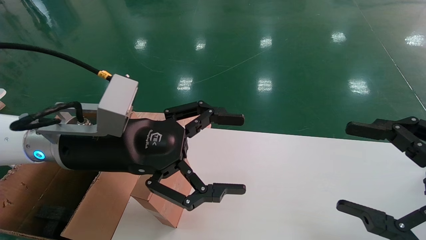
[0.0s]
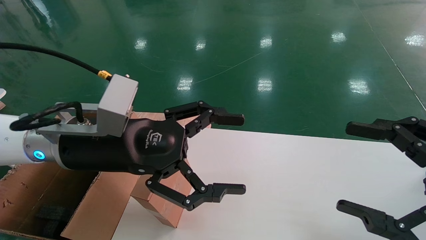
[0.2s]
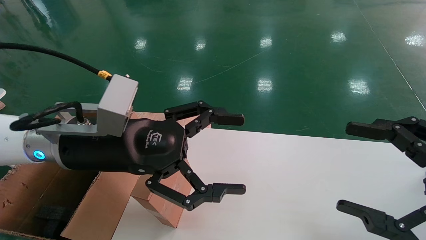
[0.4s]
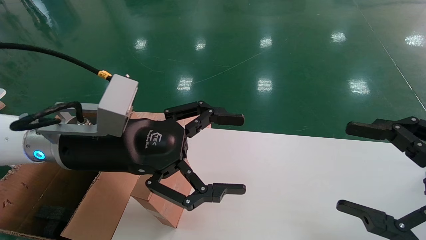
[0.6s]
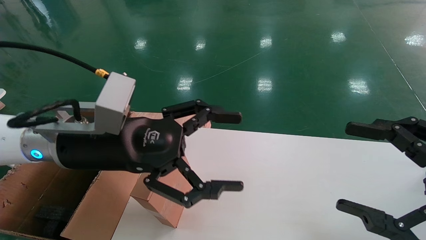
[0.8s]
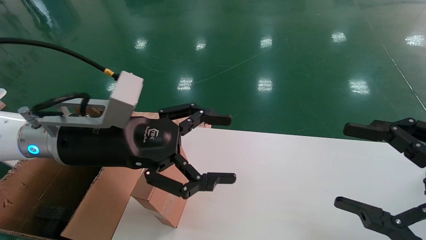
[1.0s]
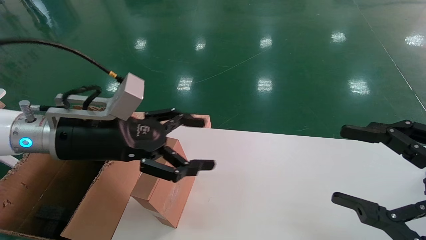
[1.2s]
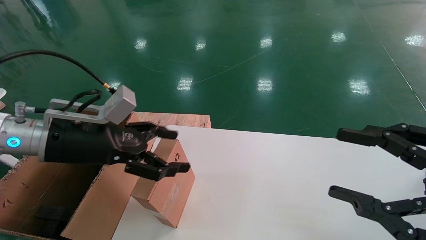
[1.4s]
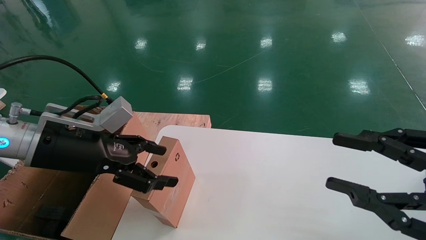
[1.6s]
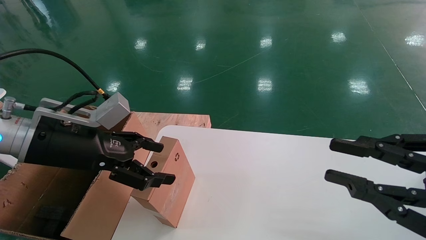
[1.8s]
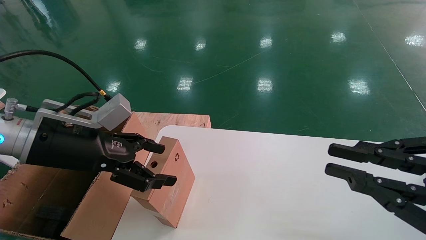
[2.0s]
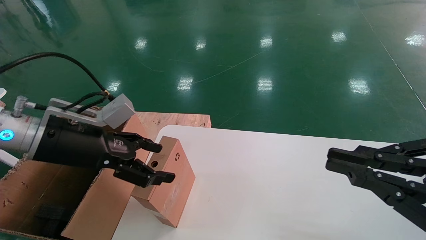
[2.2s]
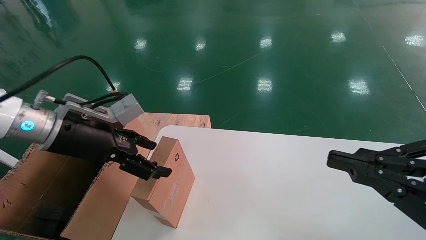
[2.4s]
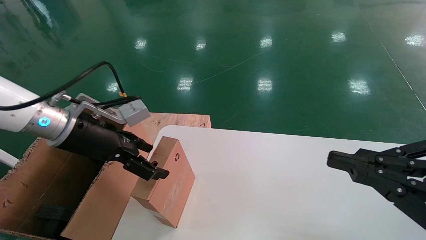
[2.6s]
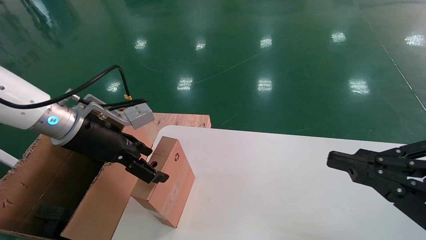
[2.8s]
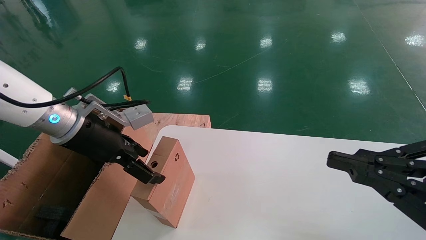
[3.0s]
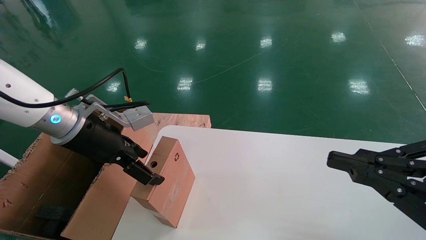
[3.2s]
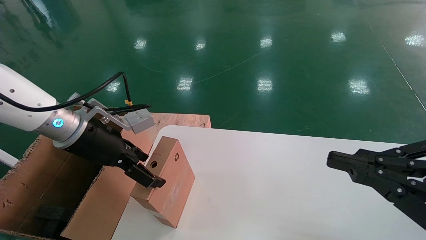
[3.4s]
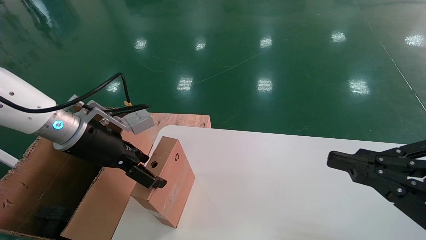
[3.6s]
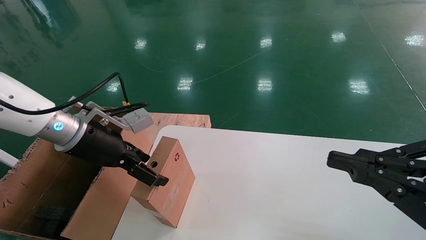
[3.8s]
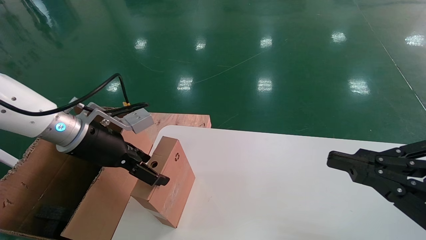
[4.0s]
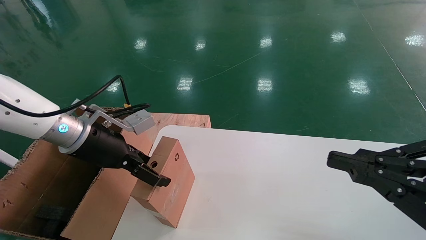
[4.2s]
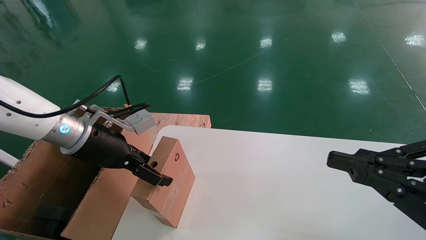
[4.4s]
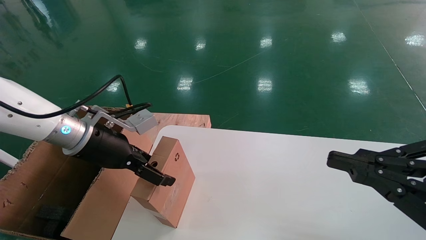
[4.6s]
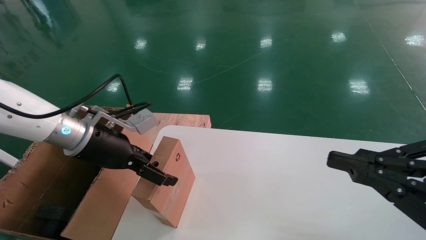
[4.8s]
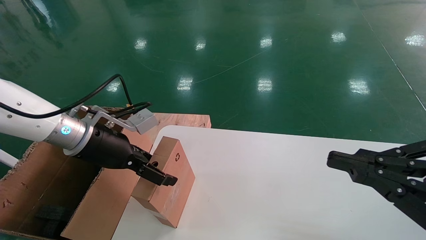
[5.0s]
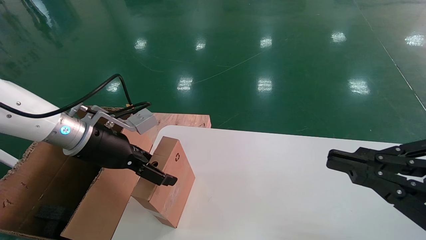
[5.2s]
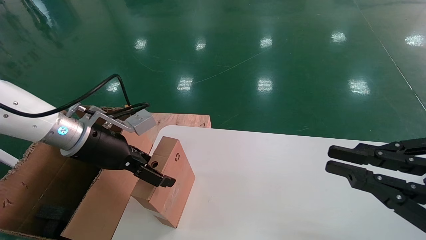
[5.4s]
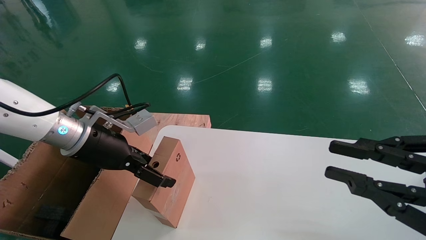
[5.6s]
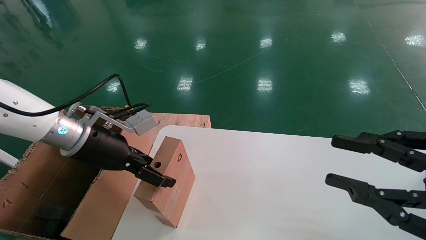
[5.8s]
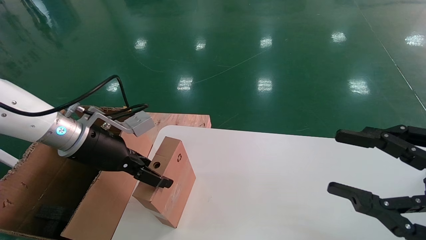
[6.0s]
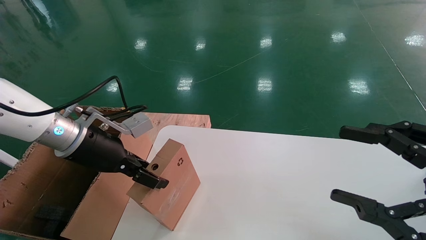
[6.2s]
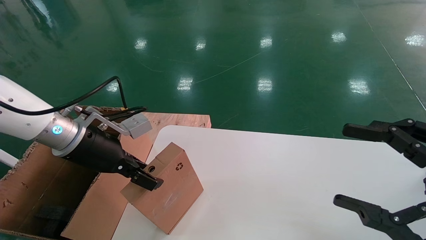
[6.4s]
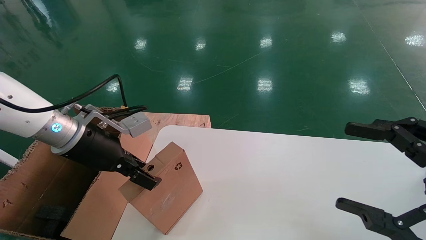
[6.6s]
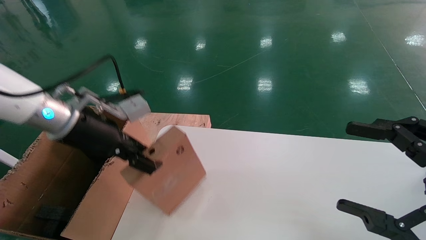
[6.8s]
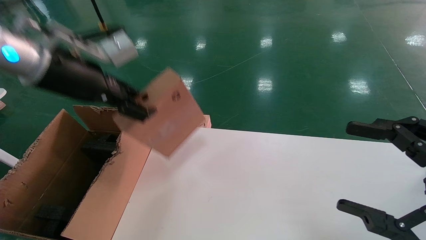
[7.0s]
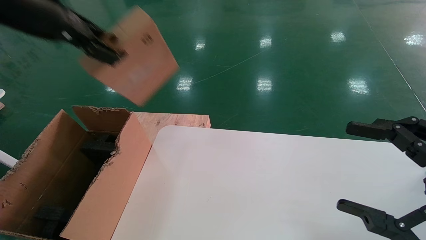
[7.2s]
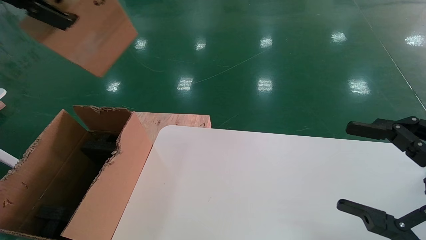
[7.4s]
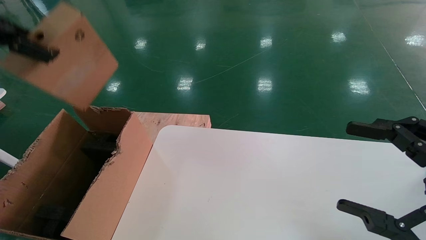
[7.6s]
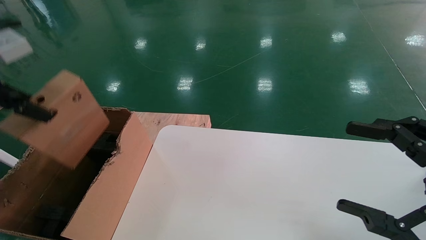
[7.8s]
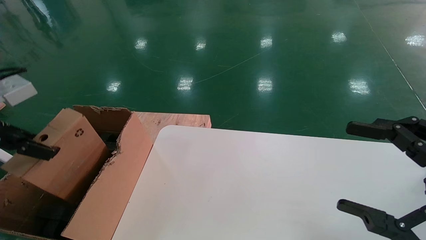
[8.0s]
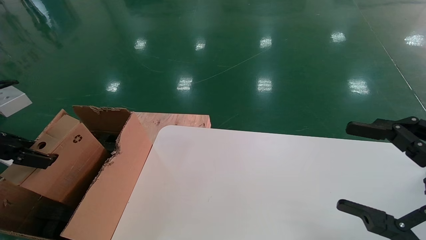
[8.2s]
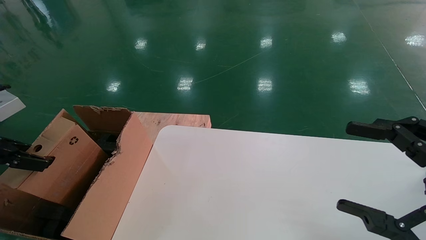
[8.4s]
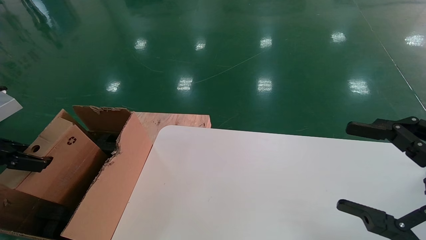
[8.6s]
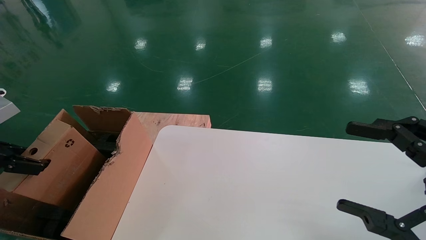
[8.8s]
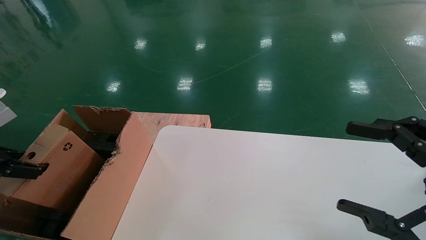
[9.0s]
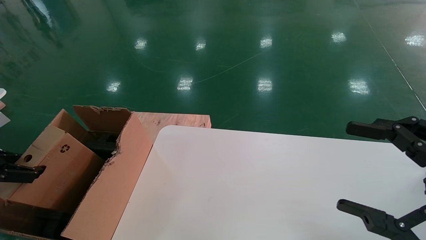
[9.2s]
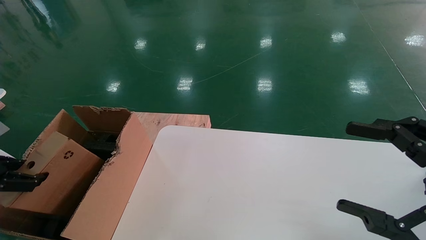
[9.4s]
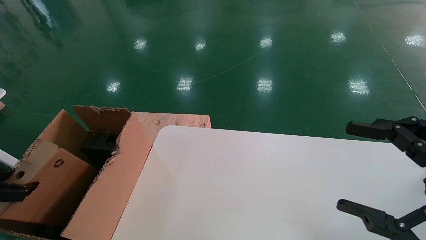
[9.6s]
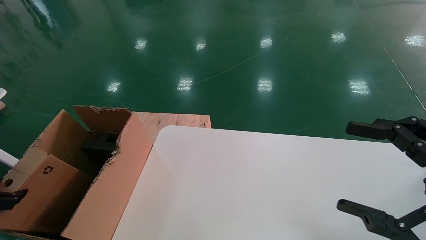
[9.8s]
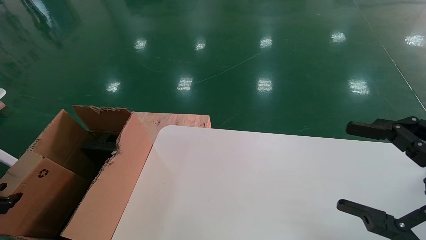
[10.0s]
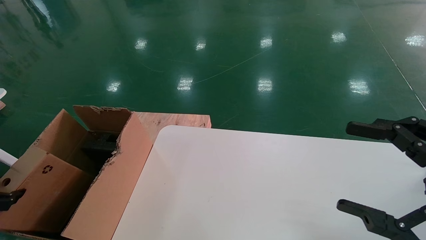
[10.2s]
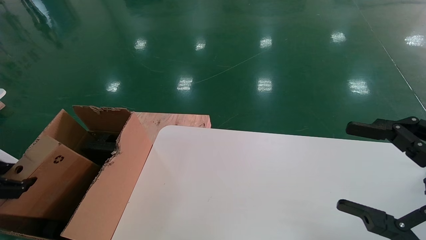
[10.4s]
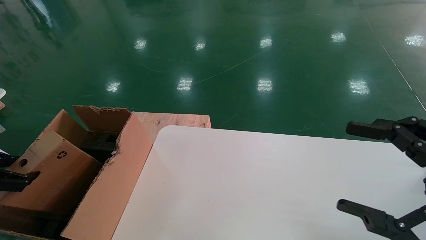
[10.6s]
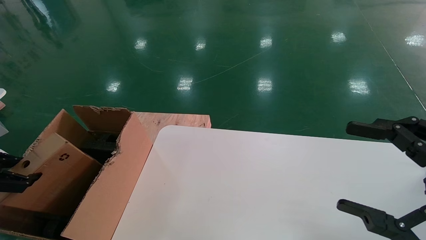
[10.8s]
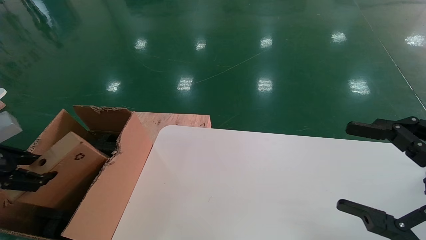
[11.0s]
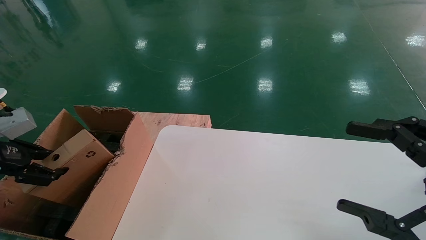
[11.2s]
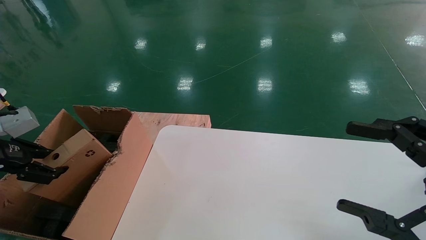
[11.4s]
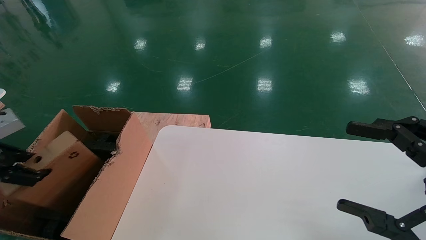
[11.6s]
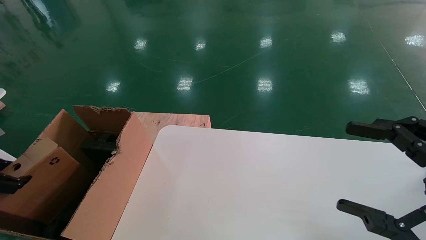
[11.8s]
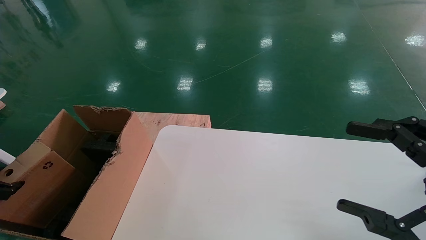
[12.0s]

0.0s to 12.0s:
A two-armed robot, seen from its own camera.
Task of the whole recording: place the small box on the table into the large box on the left.
Step, 1.2s to 6.4s: Pick up the mouse and the power cord paper box.
0.0s to 1.6s: The left gripper moves to the left, roughly 10 cm. Meanwhile the right gripper closes its fingers.
1.6s to 3.0s: The left gripper changes place by roughly 5 cm; the right gripper closes.
3.0s to 4.4s: The grippers stay close to where they were, moving slightly.
4.4s to 6.0s: The right gripper opens.
6.0s to 7.6s: The right gripper opens; the left gripper moves upward, to the left and backward, some 25 cm, and closes up.
7.6s to 9.0s: The left gripper goes roughly 20 cm downward and to the left.
10.4s to 12.0s: The grippers make only small movements.

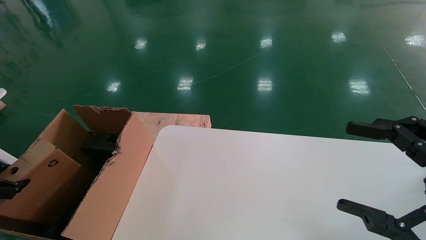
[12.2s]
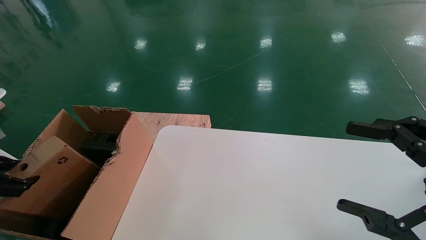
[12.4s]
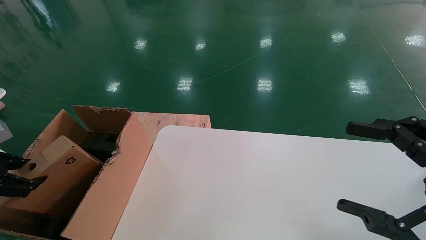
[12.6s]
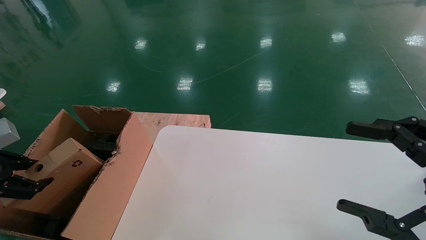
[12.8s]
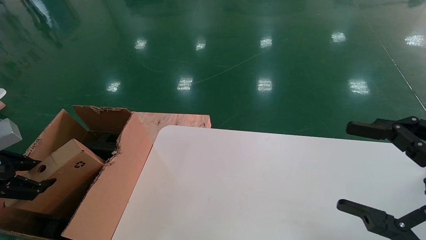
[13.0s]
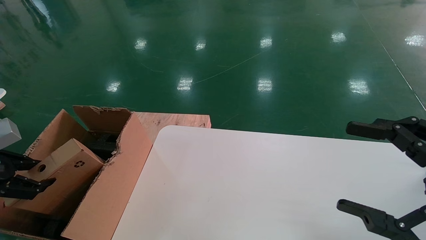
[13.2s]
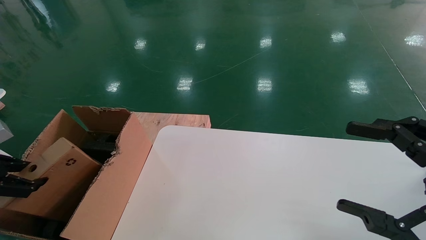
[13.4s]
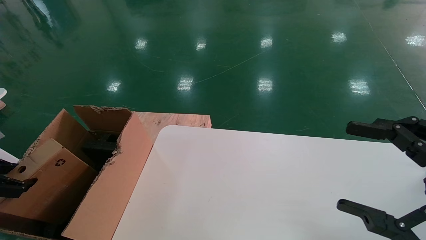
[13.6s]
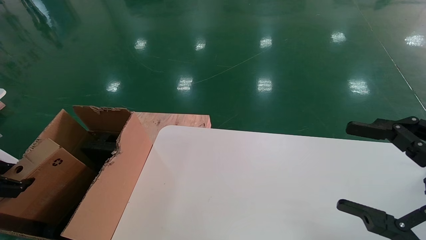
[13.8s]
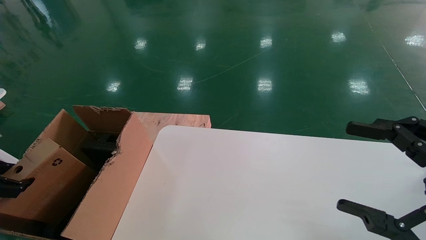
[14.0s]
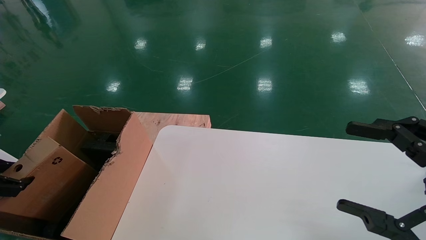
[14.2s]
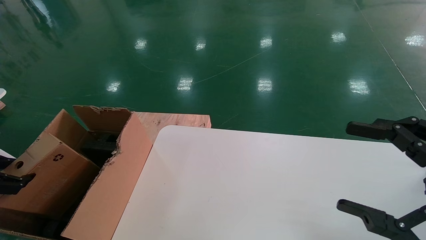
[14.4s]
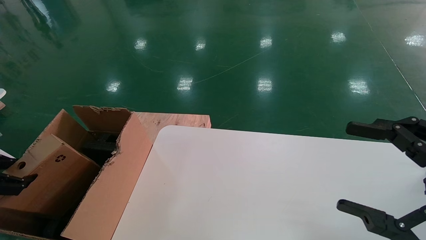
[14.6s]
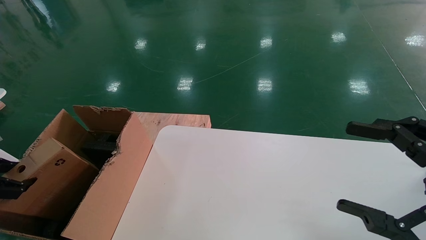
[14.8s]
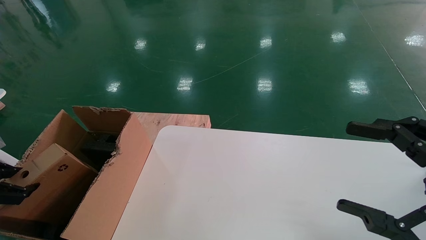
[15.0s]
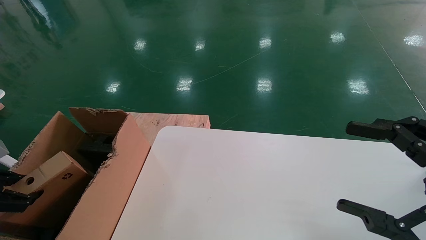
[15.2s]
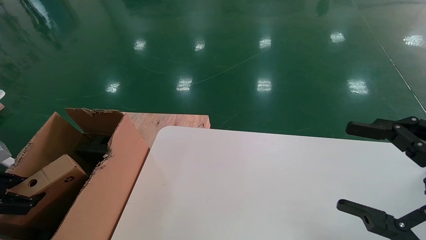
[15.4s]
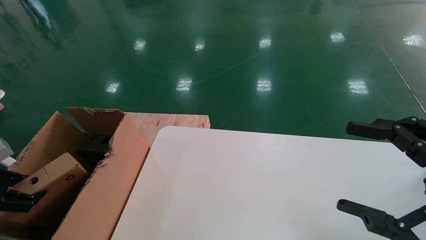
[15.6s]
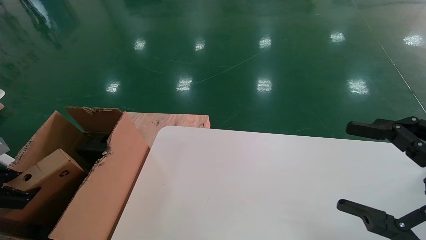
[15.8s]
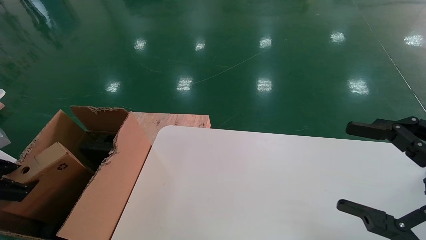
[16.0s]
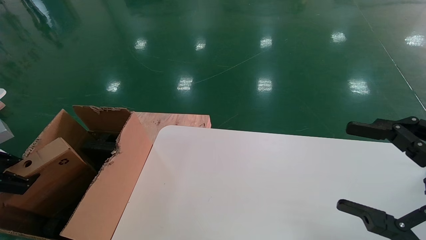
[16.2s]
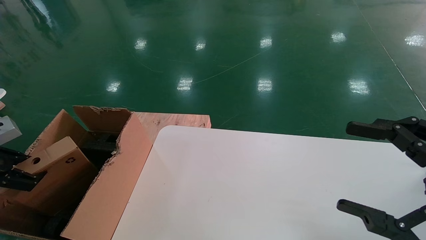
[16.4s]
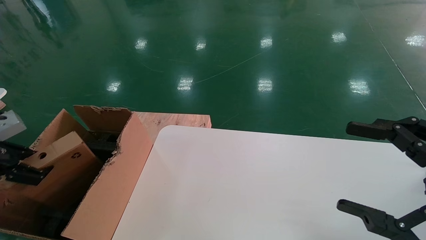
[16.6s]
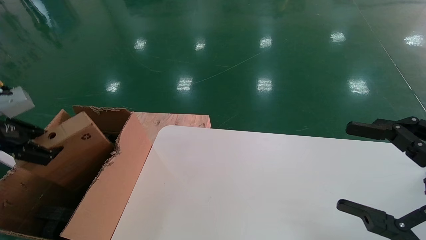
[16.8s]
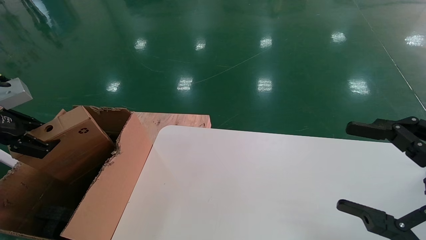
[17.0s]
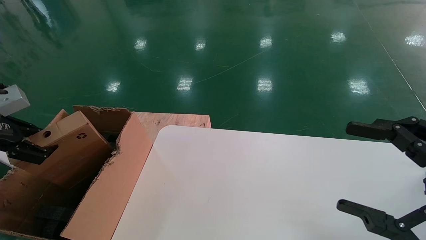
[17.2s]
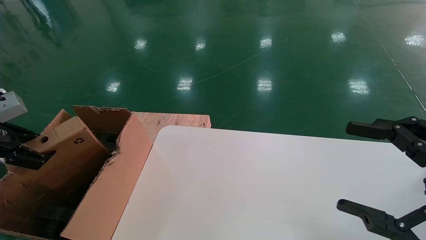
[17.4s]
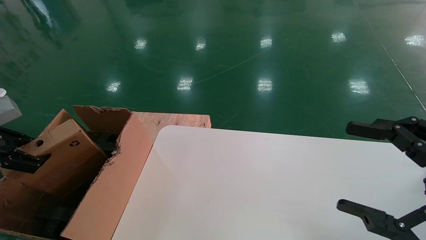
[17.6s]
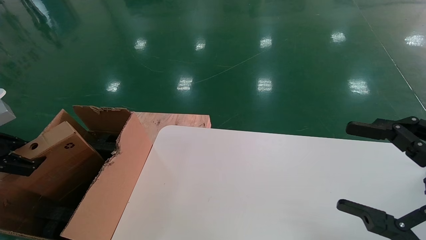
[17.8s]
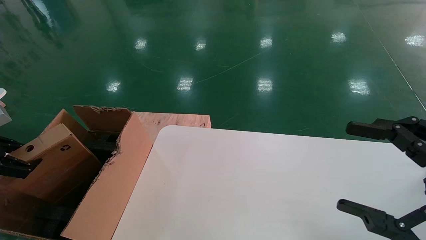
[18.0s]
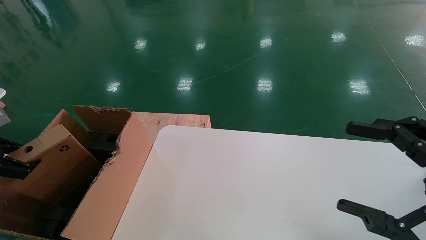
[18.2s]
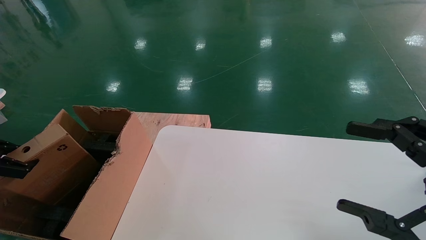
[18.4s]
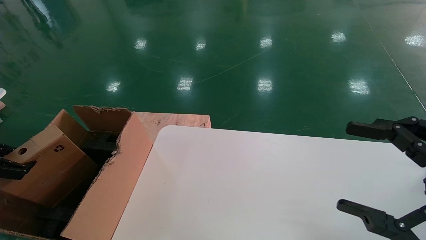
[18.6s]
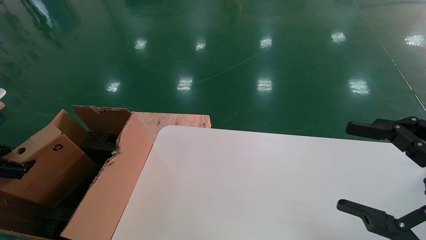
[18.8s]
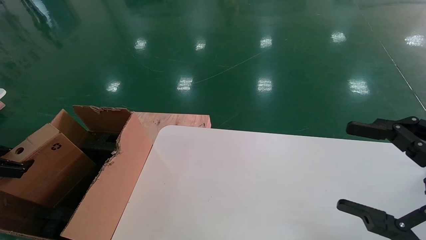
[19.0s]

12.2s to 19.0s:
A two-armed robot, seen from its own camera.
Task of the whole recording: place the small box on the table into the large box on the left.
13.6s to 16.2s: There are only small adjustments of the grippers.
17.6s to 19.0s: The grippers move only a little.
